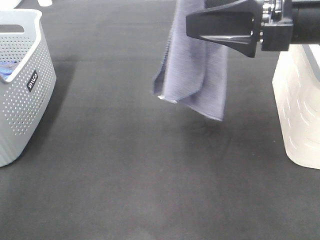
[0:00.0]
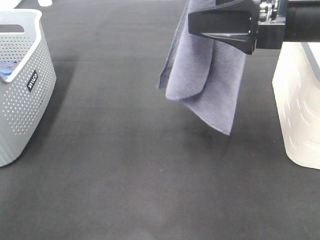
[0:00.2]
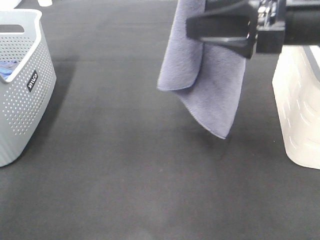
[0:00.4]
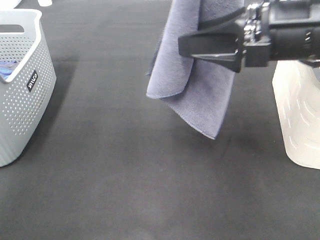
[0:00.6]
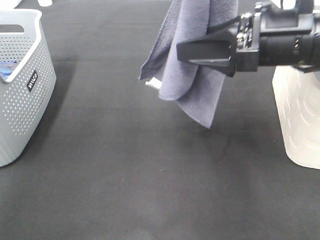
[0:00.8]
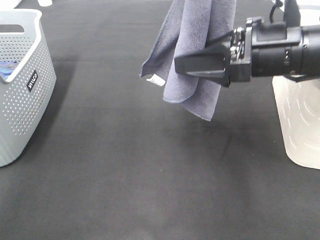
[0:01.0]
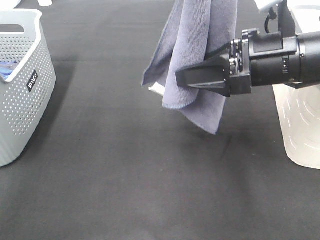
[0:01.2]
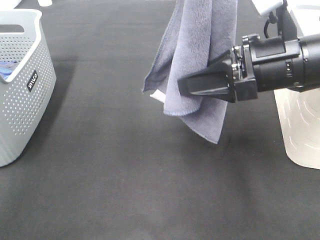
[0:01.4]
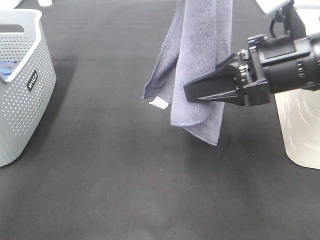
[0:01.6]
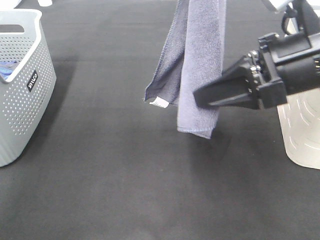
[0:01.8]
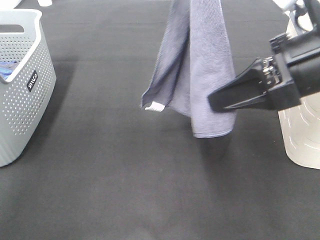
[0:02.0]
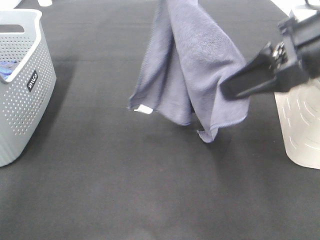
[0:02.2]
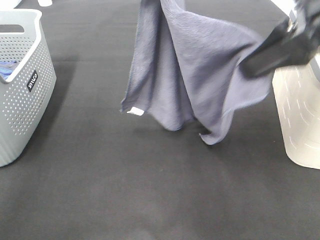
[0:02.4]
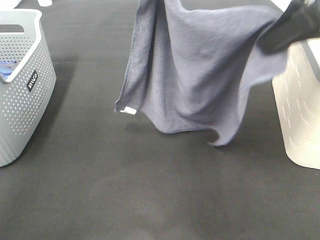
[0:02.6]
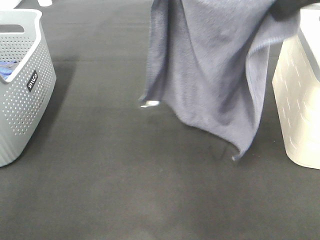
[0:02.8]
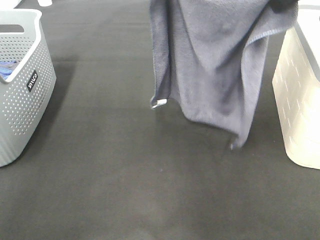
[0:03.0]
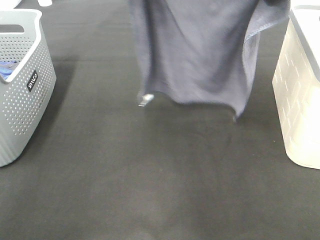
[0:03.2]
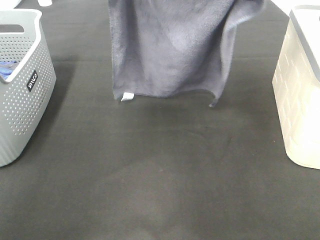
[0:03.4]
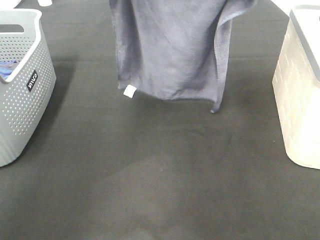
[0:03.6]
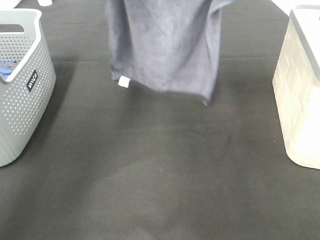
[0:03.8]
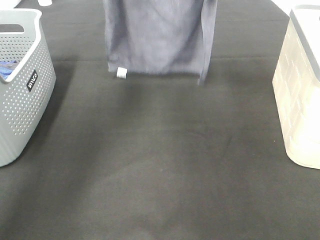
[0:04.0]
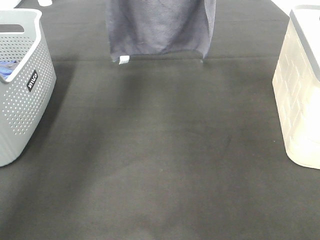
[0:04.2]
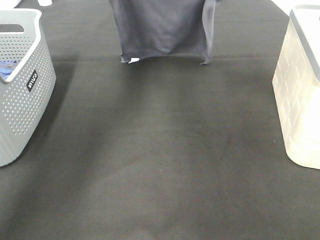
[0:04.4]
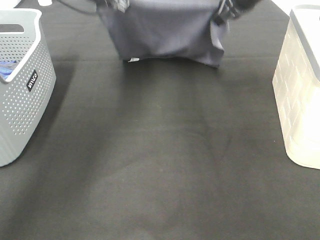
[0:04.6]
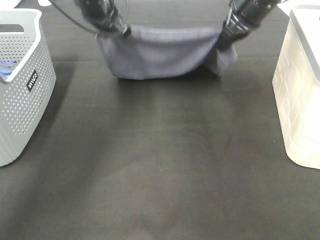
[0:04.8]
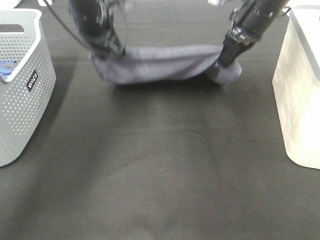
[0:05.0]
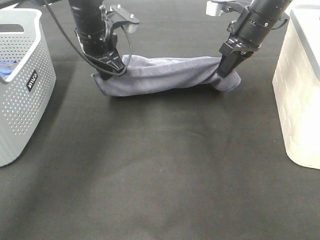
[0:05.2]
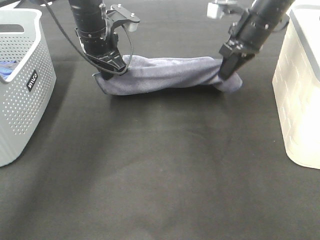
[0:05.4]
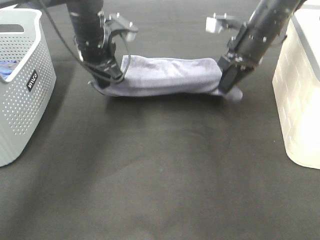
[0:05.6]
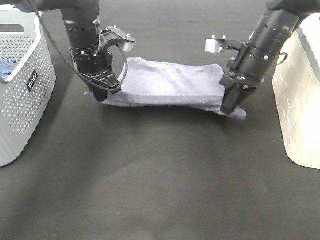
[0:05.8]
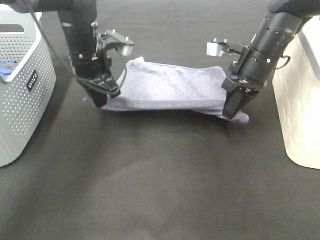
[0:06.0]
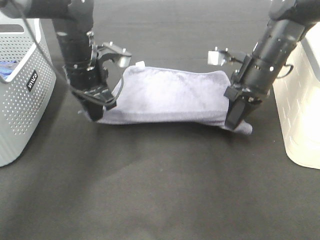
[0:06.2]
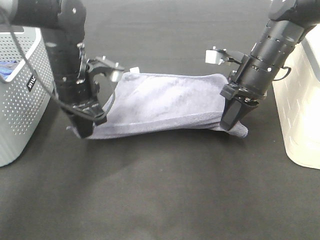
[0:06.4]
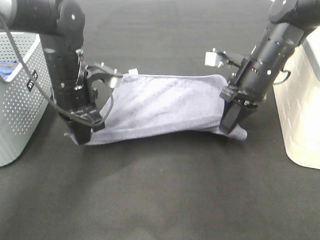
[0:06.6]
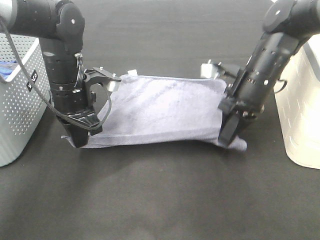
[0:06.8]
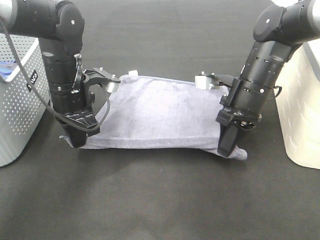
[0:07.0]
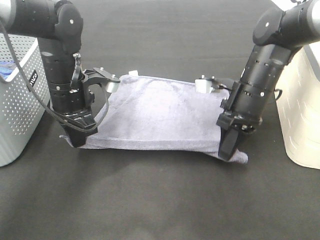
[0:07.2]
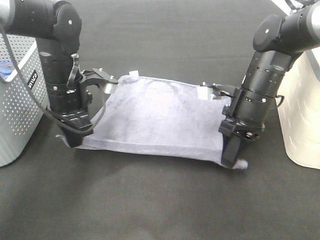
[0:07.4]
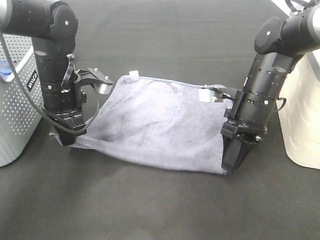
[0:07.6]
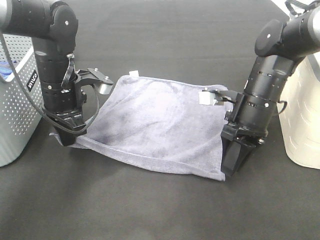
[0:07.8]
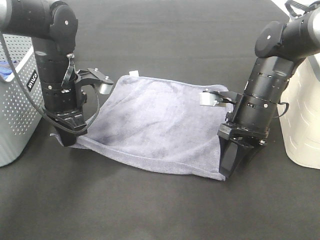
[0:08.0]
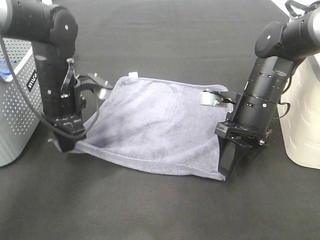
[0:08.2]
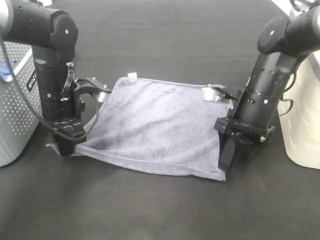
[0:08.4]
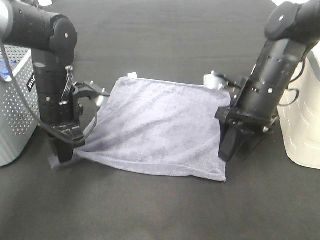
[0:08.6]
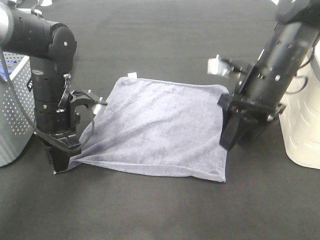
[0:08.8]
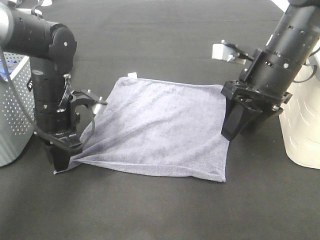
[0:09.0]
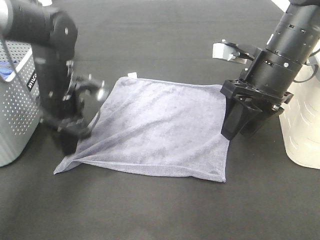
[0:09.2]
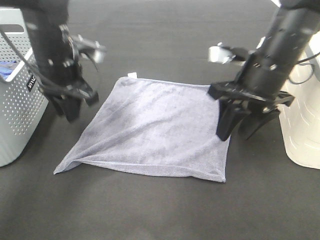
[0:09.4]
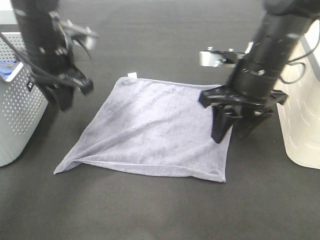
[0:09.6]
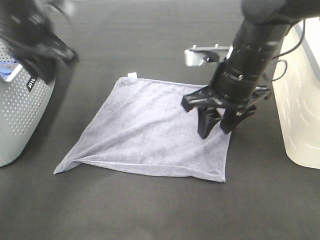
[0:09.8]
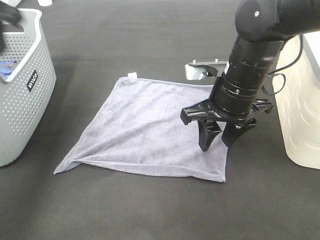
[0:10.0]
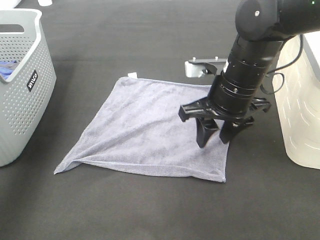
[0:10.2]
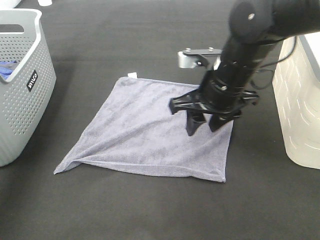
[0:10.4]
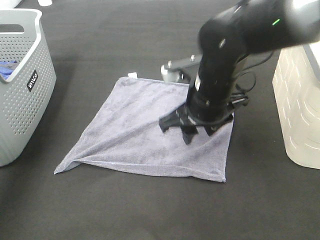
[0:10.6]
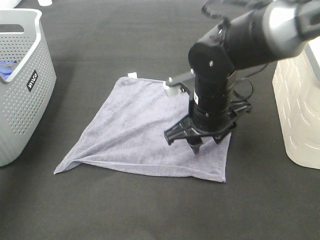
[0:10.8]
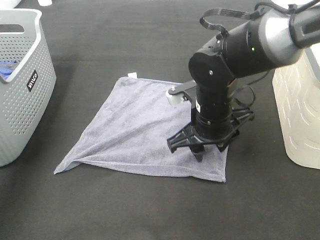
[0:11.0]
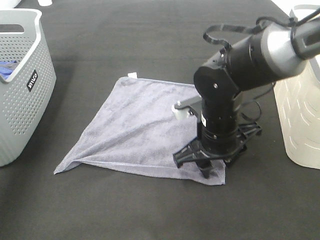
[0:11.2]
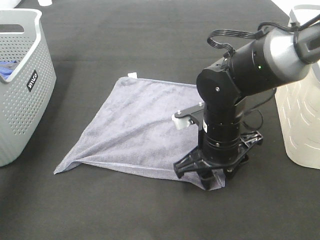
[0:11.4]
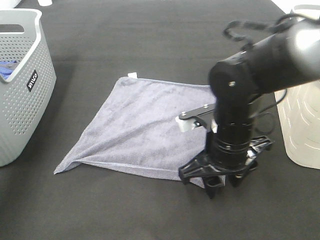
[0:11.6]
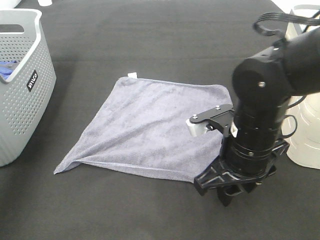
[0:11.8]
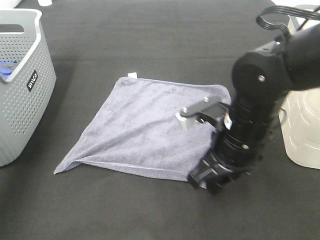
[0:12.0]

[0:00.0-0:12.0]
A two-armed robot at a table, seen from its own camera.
Task of the whole recording: Remove the towel and place it.
Step, 0:00.6 to 0:03.6: Right hand: spread the grey towel flat on the table.
Step, 0:00.6 to 0:04.6: Left hand: spread the grey towel flat on the table.
Step, 0:04.8 to 0:09.8: Right hand:adjust the gray towel.
0:00.0 to 0:01.6: The right gripper goes some 5 cm downward, and closes up.
0:01.6 to 0:03.0: The right gripper moves upward and forward, some 15 cm. Meanwhile the left gripper travels forward and downward by approximately 10 cm.
0:03.0 to 0:04.4: The right gripper shifts about 20 cm forward and downward, while the left gripper travels forward, downward and to the left by roughly 20 cm.
0:04.4 to 0:06.0: The grippers both shift downward and backward by about 15 cm.
0:06.0 to 0:07.6: The grippers both shift backward by some 5 cm. The right gripper opens up.
0:07.6 to 0:09.0: The right gripper travels upward by roughly 10 cm.
0:09.0 to 0:10.4: The right gripper shifts about 5 cm to the left. The left gripper moves upward and to the left, approximately 25 cm.
0:10.4 to 0:12.0: The right gripper travels backward by approximately 10 cm.

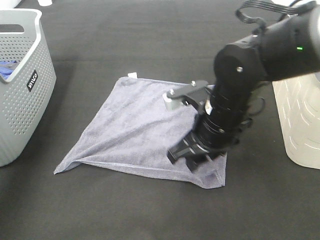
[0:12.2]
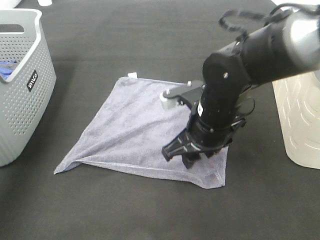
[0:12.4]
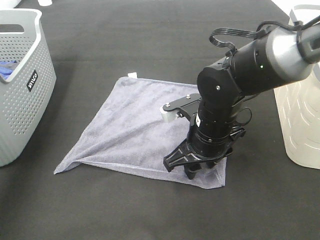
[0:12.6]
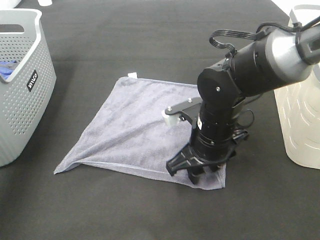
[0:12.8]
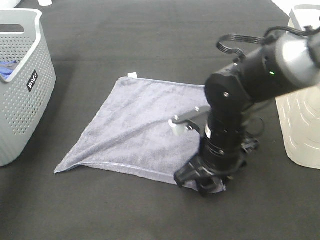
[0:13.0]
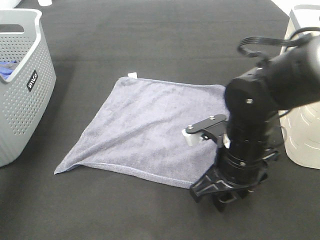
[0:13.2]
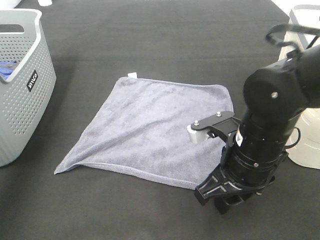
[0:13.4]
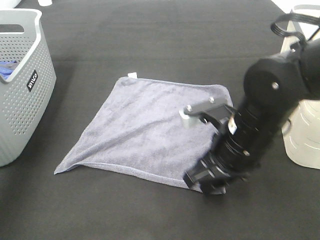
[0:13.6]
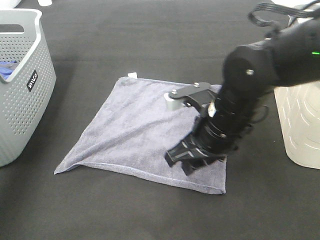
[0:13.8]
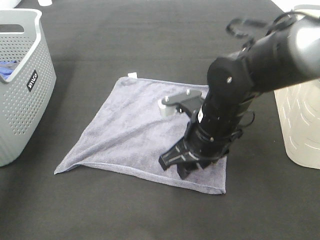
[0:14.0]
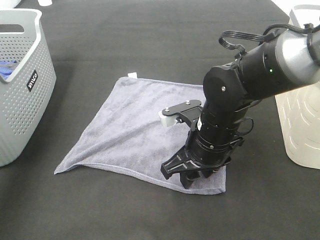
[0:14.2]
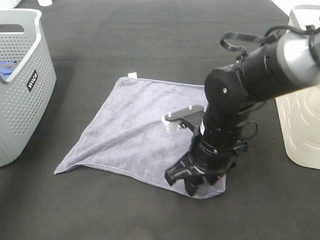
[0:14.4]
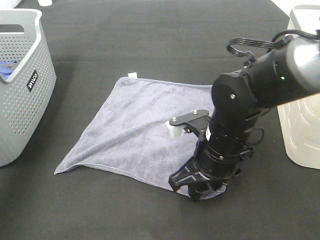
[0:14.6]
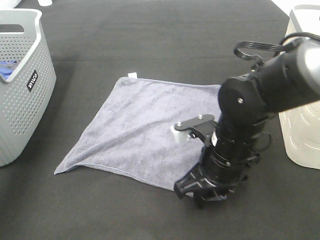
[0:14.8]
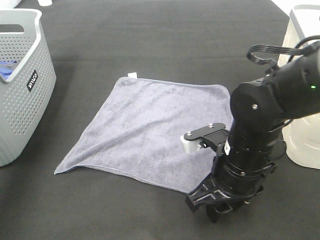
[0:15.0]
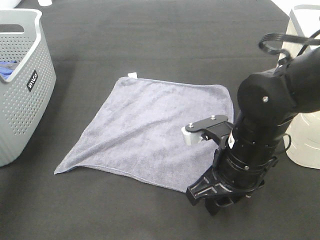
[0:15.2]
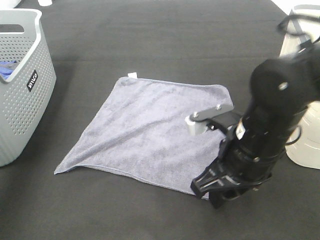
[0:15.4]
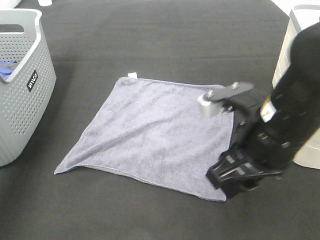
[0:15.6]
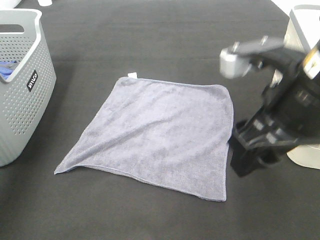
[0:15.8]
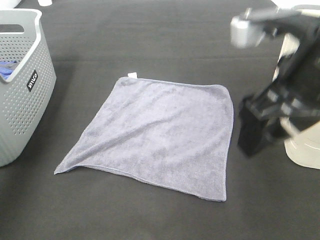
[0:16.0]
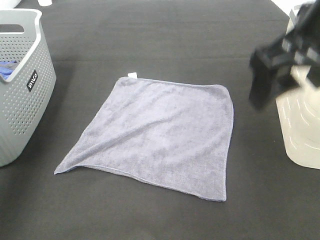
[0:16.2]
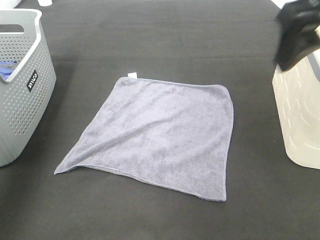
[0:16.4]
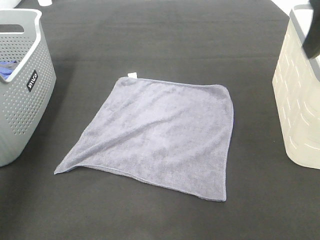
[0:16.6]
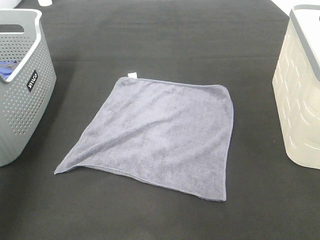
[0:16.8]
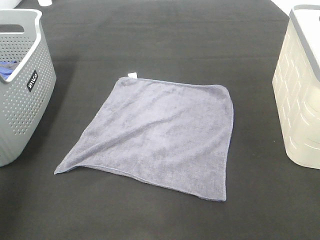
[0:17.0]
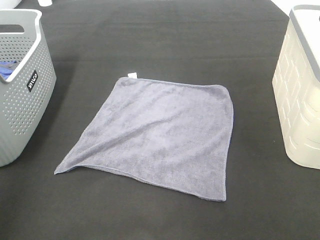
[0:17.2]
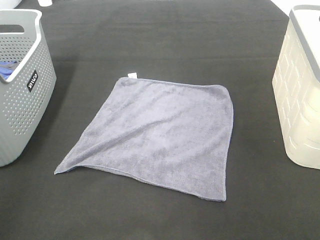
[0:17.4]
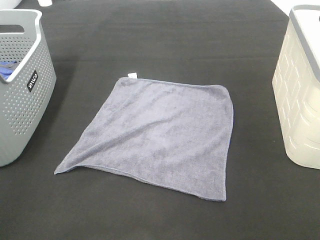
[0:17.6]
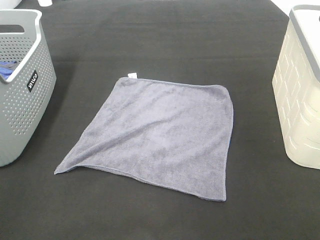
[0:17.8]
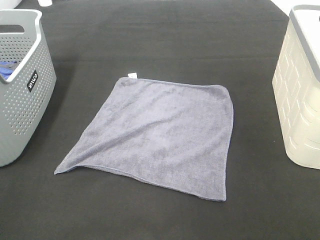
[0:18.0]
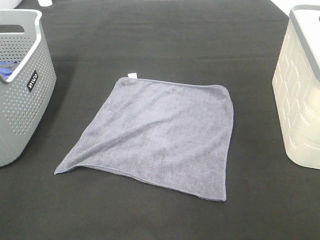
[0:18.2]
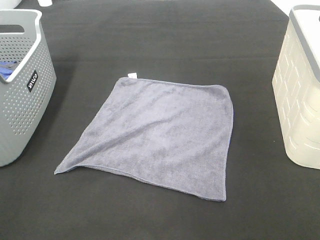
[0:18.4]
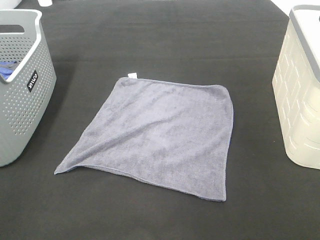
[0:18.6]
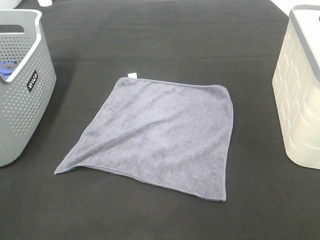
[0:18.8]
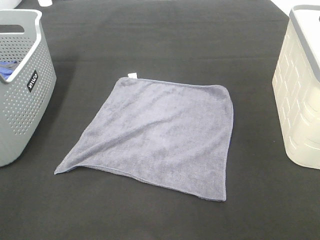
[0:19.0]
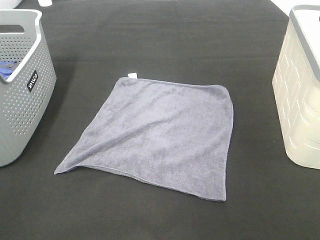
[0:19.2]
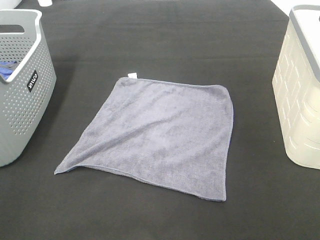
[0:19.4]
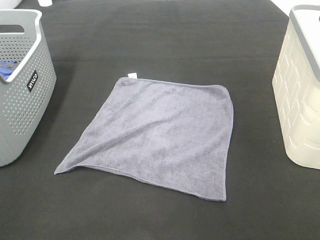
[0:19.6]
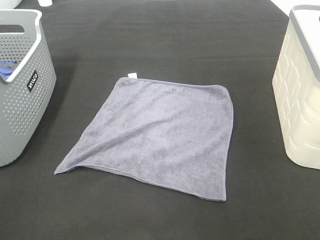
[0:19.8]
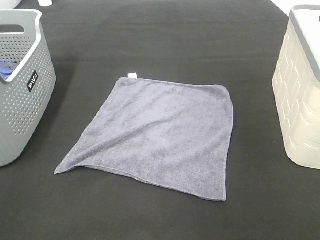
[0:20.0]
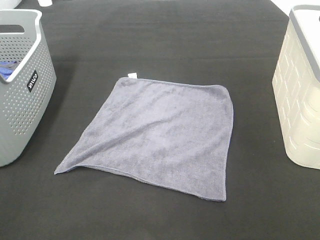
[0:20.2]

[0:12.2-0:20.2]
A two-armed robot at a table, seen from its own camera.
Task of the whole recording: Remove the towel and place it.
0:13.8 to 0:15.4: The right gripper moves some 5 cm.
0:15.4 to 0:17.0: The right gripper goes roughly 25 cm upward and to the right, and opens; the left gripper heads backward, covering roughly 20 cm.
0:17.0 to 0:18.6: The left gripper shifts about 20 cm backward and downward.
